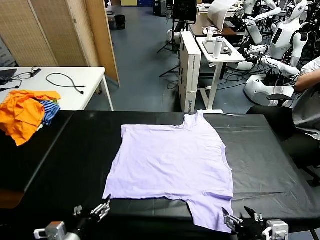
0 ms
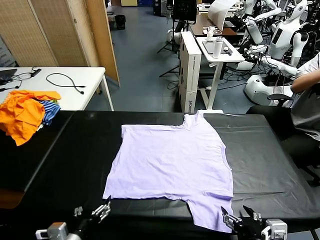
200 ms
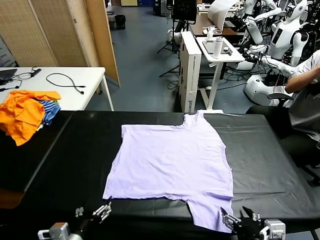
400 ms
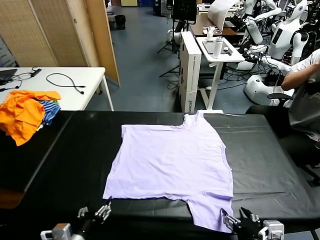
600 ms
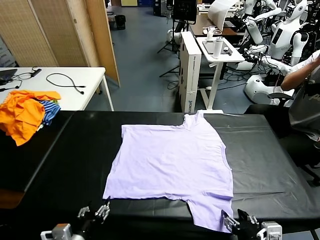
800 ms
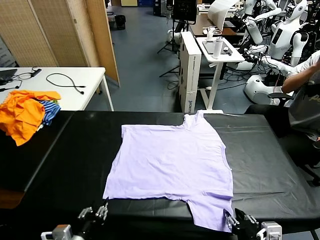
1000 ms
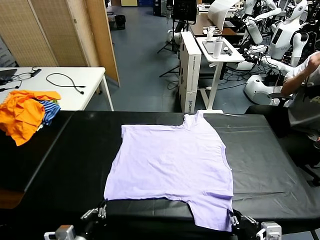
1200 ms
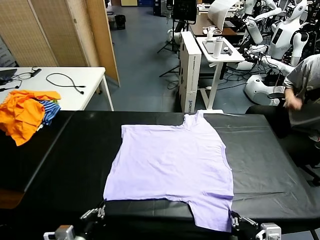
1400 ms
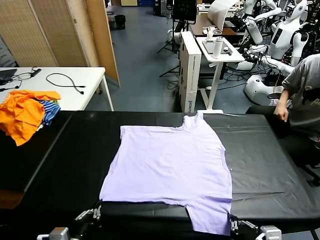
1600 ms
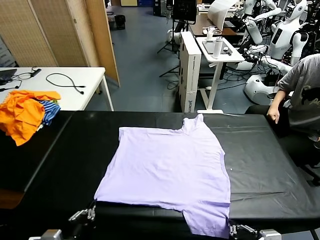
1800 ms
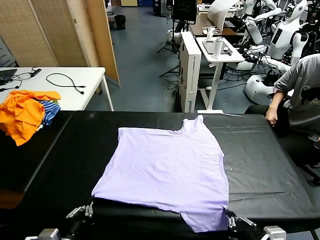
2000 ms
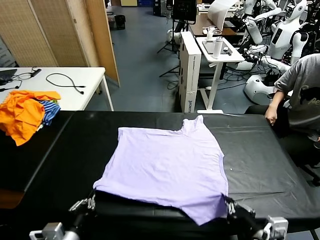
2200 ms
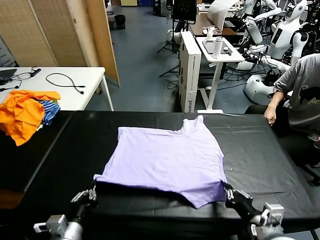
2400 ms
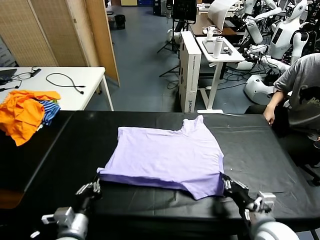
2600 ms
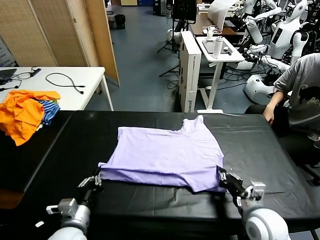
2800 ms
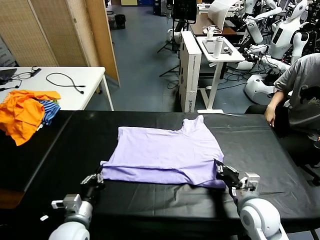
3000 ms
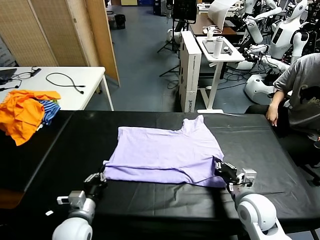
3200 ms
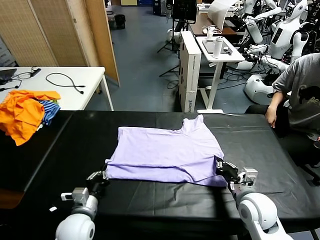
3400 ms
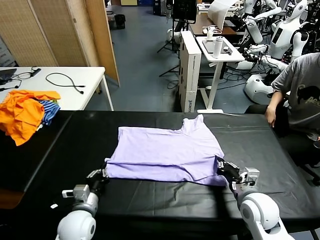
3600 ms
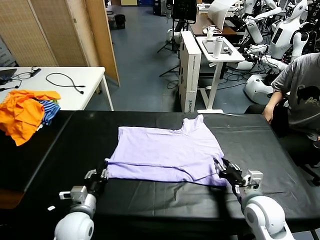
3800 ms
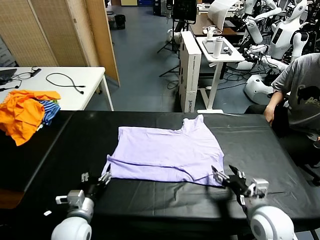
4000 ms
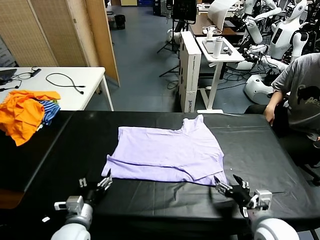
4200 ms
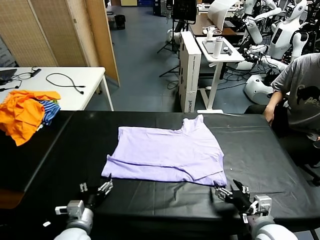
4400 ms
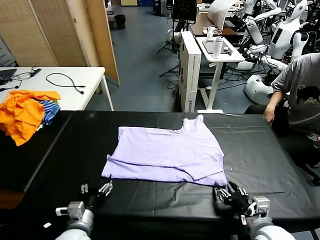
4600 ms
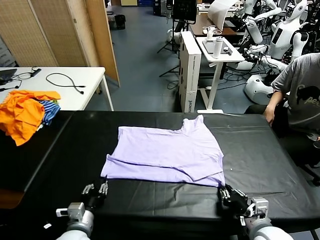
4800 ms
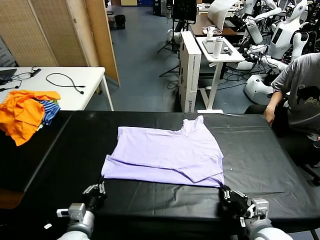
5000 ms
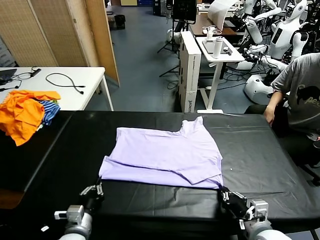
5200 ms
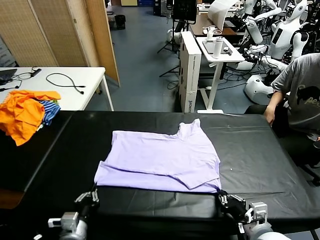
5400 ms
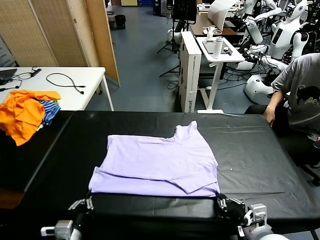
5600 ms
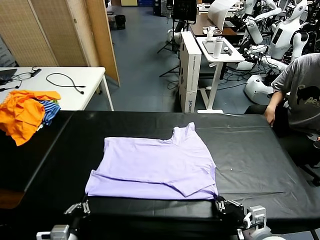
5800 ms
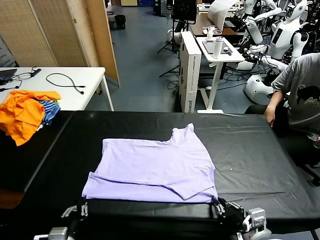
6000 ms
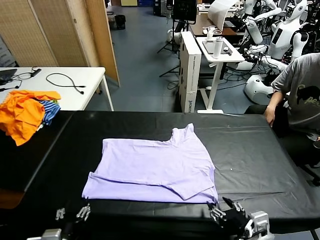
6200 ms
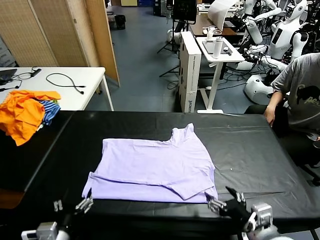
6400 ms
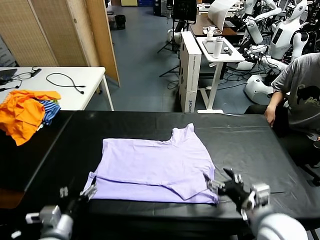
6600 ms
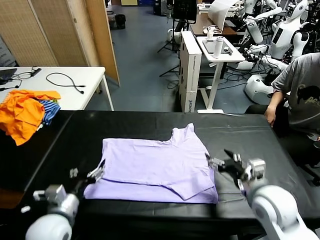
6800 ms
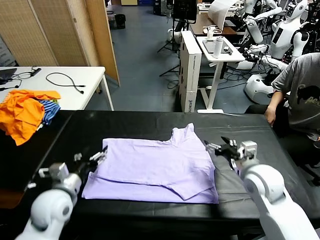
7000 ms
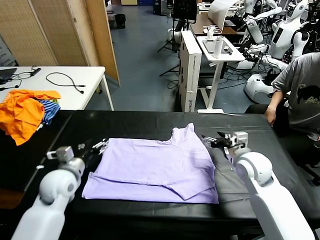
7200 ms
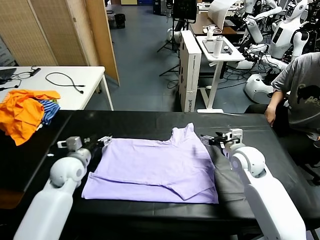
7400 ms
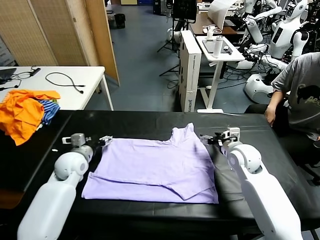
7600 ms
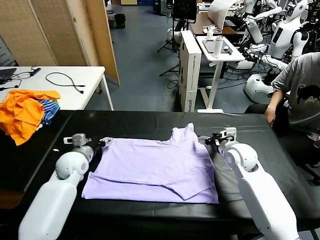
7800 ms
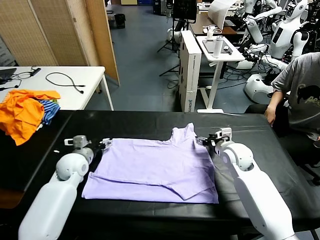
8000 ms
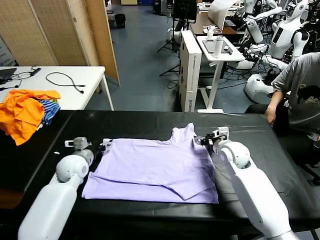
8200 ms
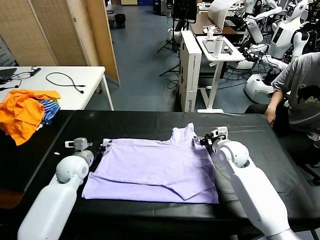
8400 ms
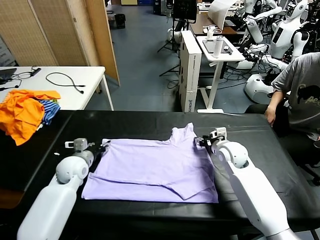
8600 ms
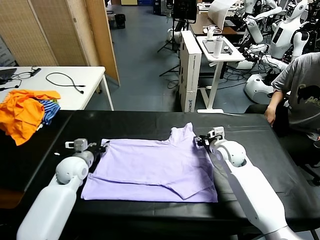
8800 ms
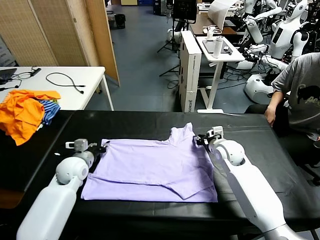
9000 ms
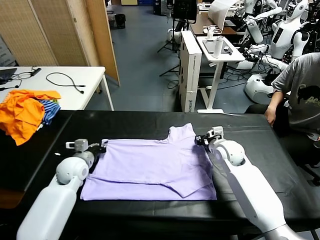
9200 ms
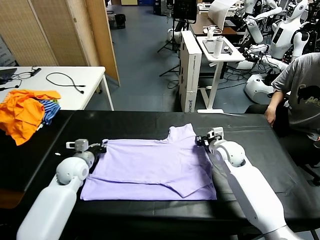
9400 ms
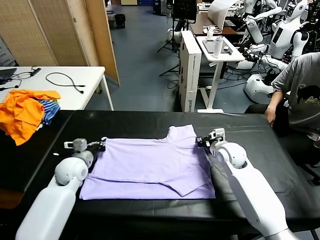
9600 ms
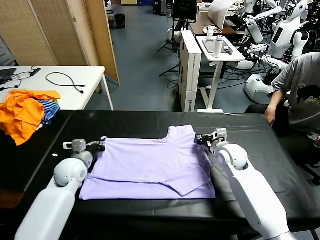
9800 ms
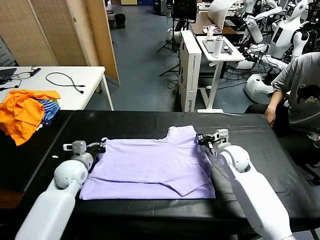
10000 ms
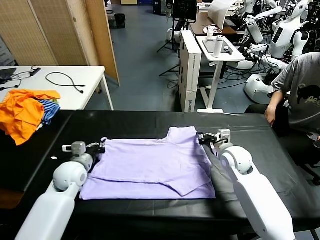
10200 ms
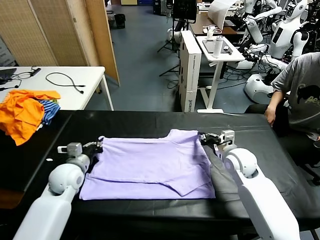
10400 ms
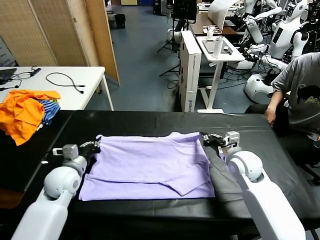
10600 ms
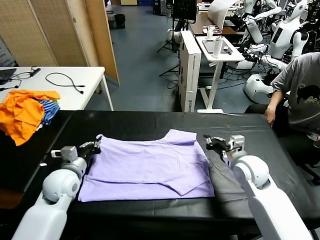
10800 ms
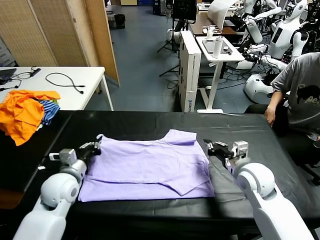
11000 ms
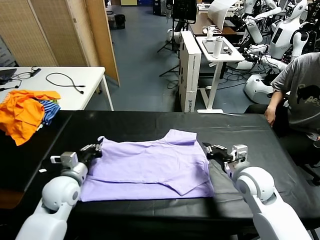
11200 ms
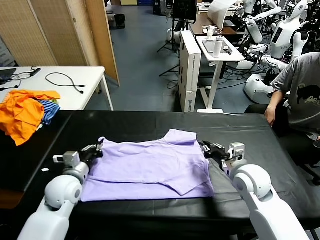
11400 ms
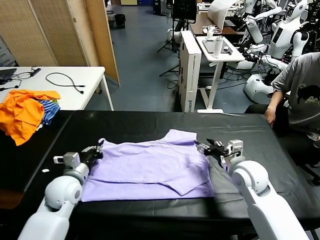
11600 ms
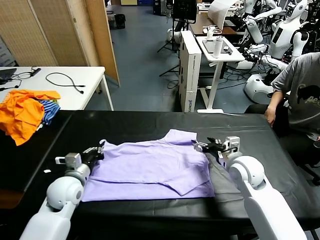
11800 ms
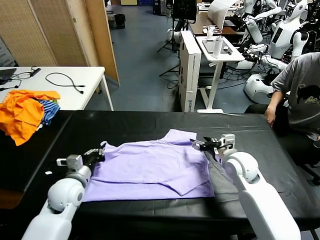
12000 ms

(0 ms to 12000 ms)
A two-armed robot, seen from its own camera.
Task of the whole recording: fold and organize the clothes.
Step, 0 ms - 1800 ms: use both grippers simultaneously to clamp the lower edge of the clothing fabric.
Step, 2000 ms - 3800 ms: use both grippers to drag the lower edge of the fabric forward and fold it over the upper edge.
Step, 4000 ms - 6200 ms: Drag the clothes downward with both gripper.
Step, 6400 ms - 9400 ms: use both grippers simultaneously to clamp the upper edge of the clothing fabric.
1600 ms - 3000 ms: The right gripper goes about 15 cm forward; the left gripper moves forward, approximately 10 cm.
3000 ms - 4400 ms: The left gripper opens up, while the right gripper shifts roughly 10 cm backward, and opens up.
4400 ms - 6000 ms: The right gripper moves some 5 cm, and closes and opens again. The left gripper moves backward, approximately 10 cm, and closes its fingers.
6000 ms - 7600 ms: Both grippers move forward, some 30 cm. The right gripper opens its fingers; the left gripper opens its fingers.
7600 ms - 9000 ms: The right gripper shifts by about 5 cm, and closes. Meanwhile the left gripper closes up.
9000 ms - 10400 ms: The right gripper moves backward, approximately 5 cm, while the left gripper closes up.
10400 ms - 12000 ms: The right gripper moves about 10 cm backward and comes back, and opens its fingers, while the left gripper changes place by approximately 5 cm.

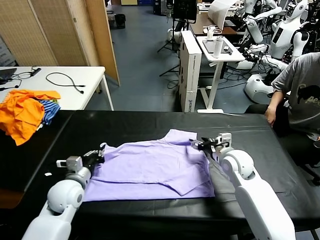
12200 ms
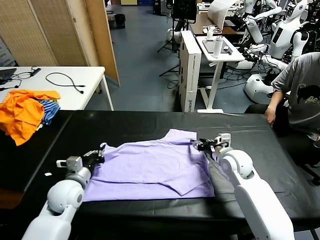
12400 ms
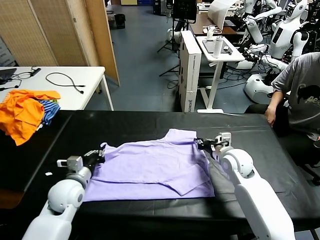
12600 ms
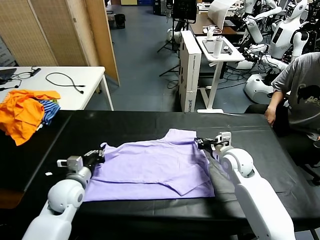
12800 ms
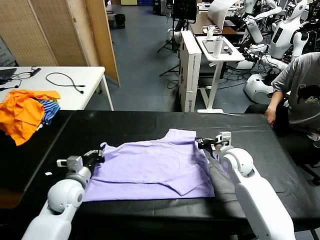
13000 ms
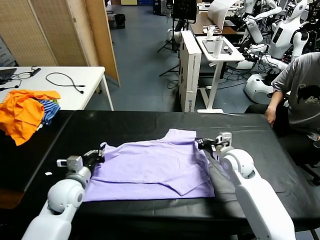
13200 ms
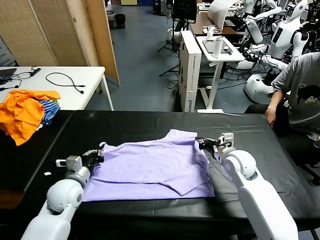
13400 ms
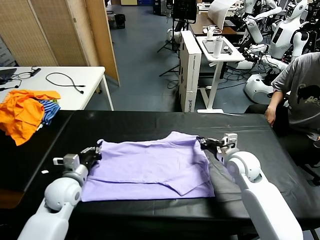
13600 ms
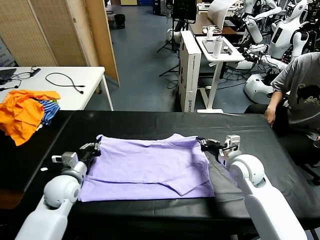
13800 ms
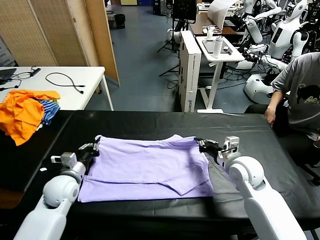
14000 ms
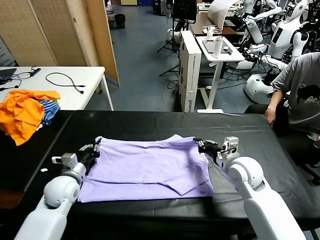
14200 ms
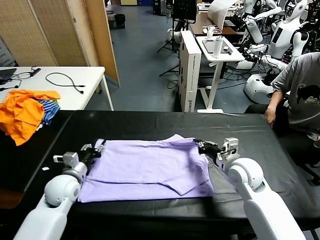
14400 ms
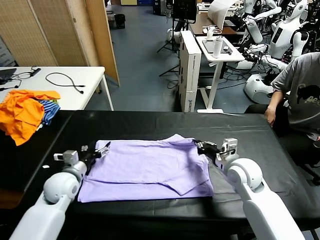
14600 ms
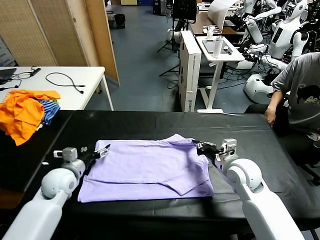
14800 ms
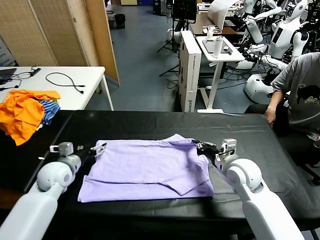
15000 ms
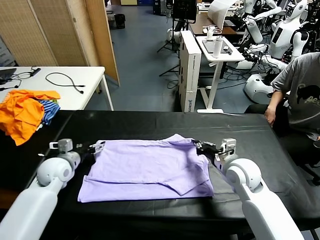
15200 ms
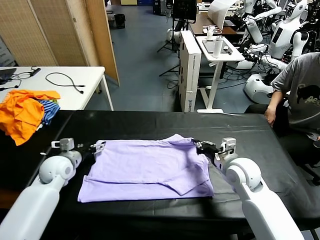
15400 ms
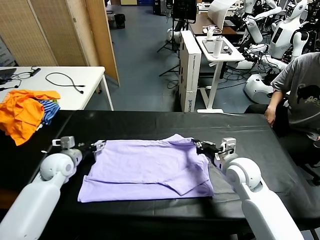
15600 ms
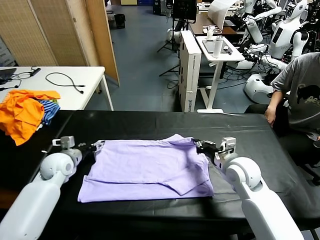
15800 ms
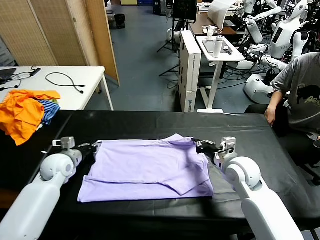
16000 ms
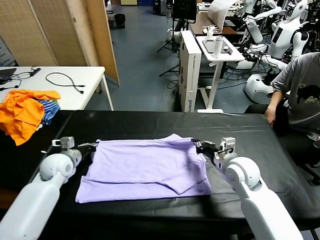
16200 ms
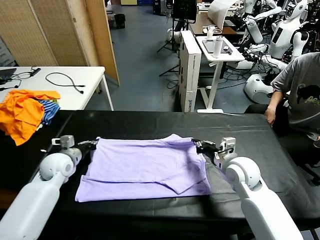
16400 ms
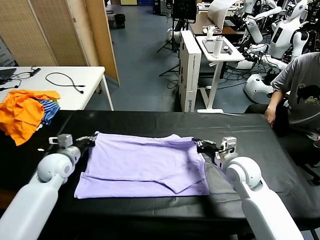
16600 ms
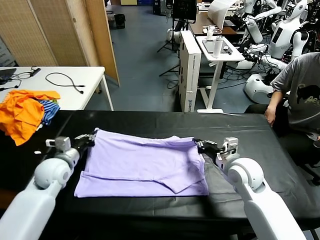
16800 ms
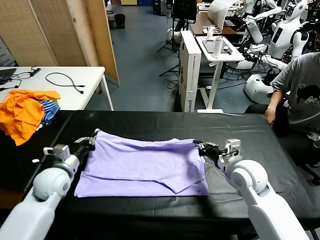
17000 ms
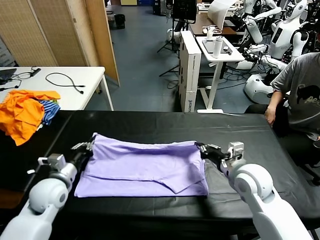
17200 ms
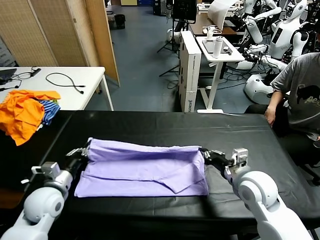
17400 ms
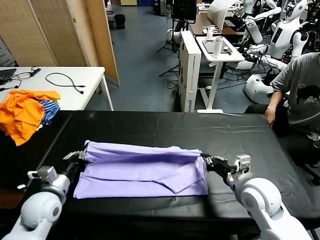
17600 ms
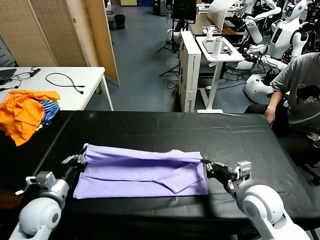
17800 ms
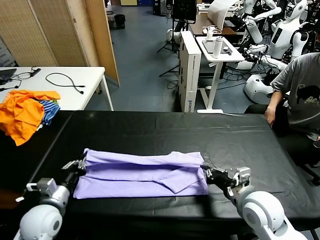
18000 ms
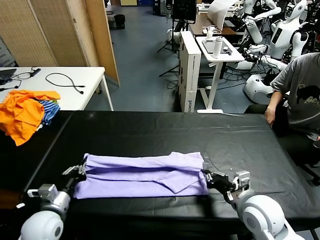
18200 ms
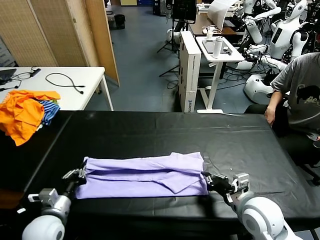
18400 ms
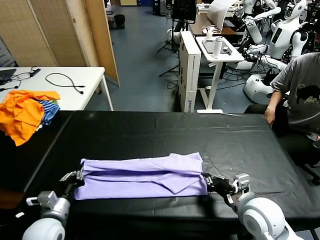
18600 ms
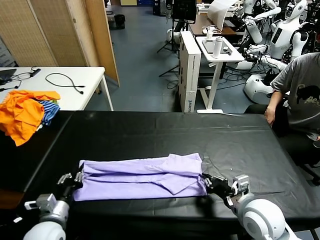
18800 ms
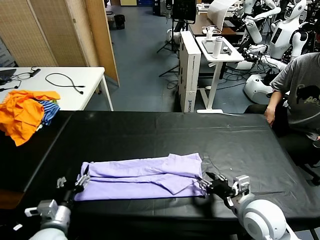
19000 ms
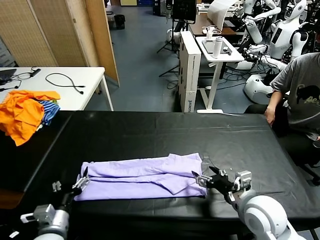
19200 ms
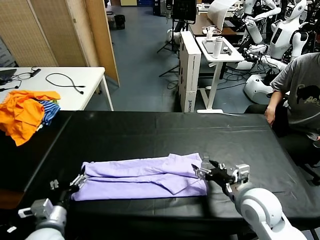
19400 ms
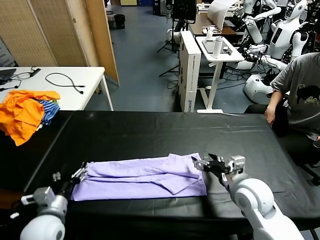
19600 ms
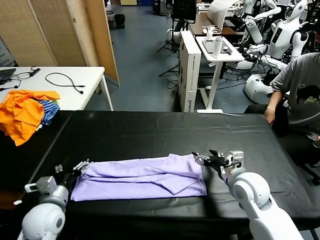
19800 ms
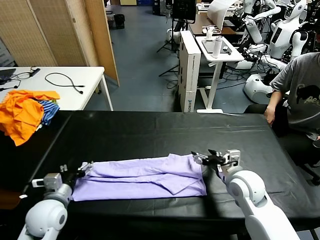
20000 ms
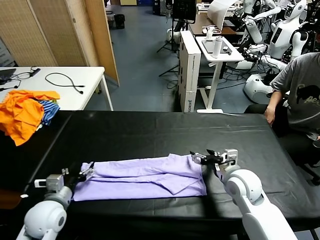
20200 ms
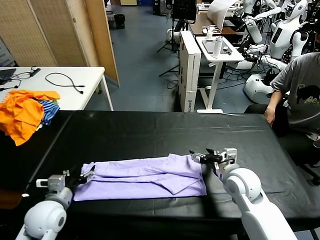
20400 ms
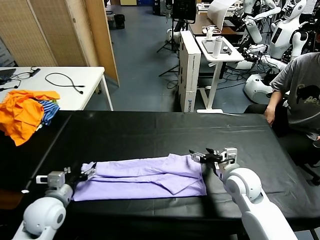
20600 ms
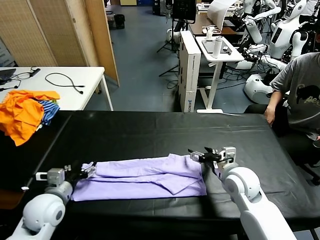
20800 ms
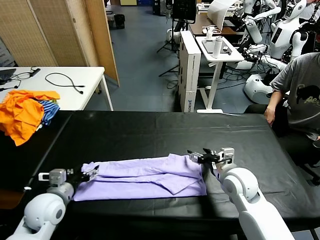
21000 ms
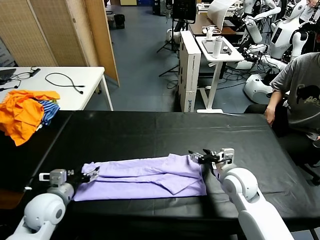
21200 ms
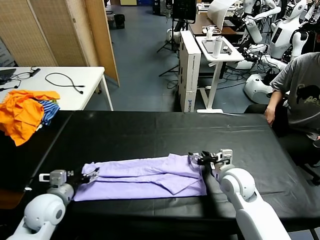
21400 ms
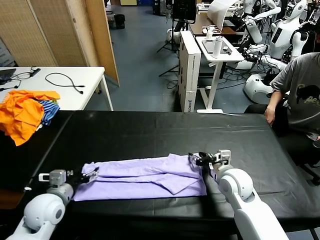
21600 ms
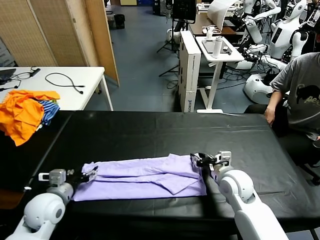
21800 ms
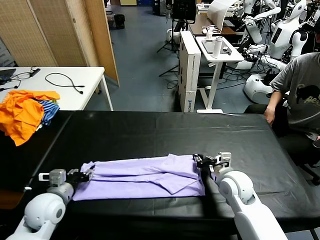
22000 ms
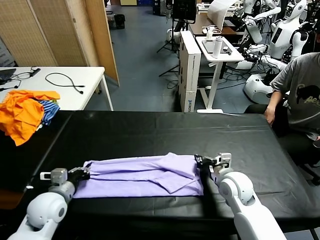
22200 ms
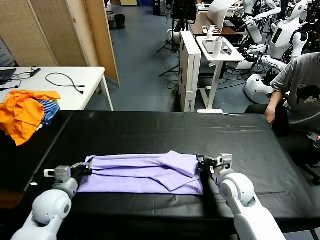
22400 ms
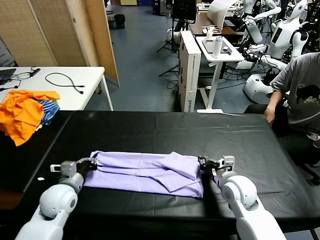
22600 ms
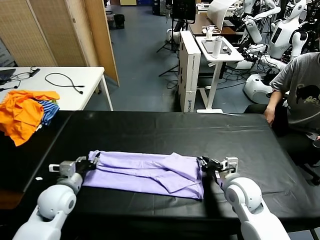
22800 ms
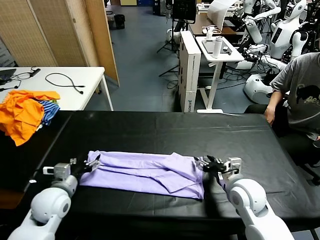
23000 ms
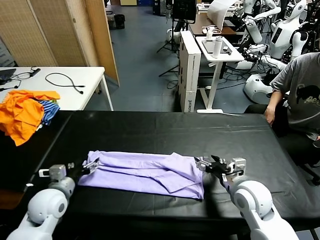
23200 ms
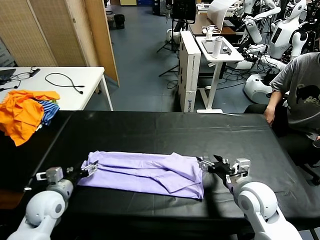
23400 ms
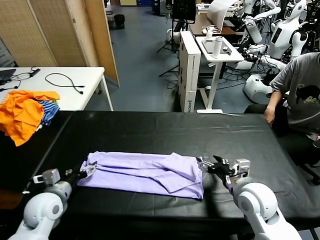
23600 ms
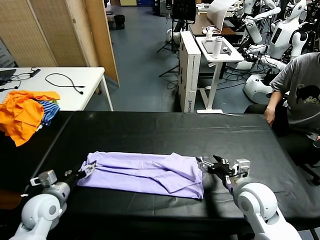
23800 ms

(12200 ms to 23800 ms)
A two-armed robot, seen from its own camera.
Task of the whole recording: fold and organize the clothes.
Step, 12200 ms - 23200 ms: use both grippers to drag the upper edge of the fabric backward and fold it over the lower edge.
12200 ms - 13600 ms: The right gripper closes.
13600 ms - 15000 ms: The left gripper shifts approximately 5 cm forward, and opens.
15000 ms - 16600 ms: The left gripper closes.
16600 ms - 18000 ms: The grippers both shift backward by some 15 cm.
18000 ms - 19400 ms: The left gripper goes some 5 cm backward, and opens. Meanwhile the right gripper opens its fingers.
19400 ms - 21000 ms: Both grippers travel together forward, some 10 cm.
21000 ms - 22400 ms: The right gripper closes its fingers; the left gripper closes its fingers.
22400 ms - 23800 ms: The right gripper shifts roughly 5 cm backward, and opens its fingers; the left gripper opens its fingers.
